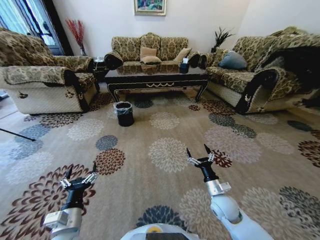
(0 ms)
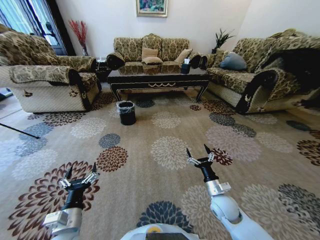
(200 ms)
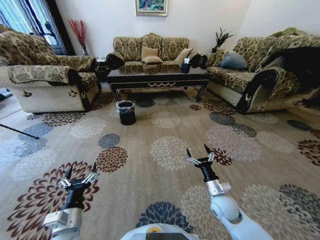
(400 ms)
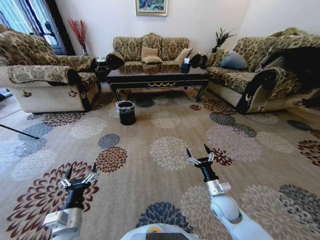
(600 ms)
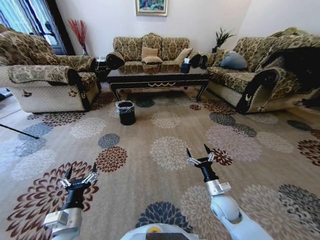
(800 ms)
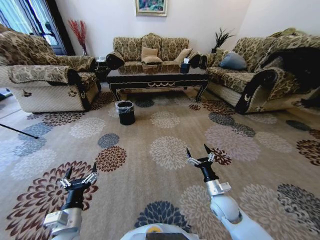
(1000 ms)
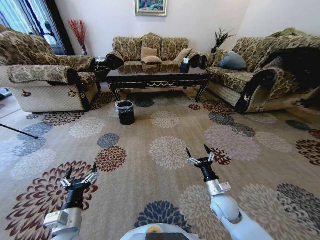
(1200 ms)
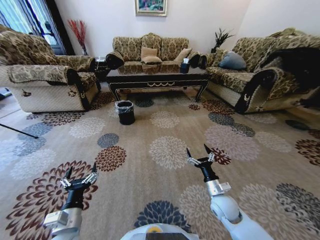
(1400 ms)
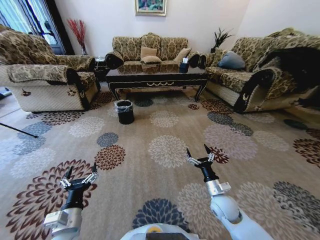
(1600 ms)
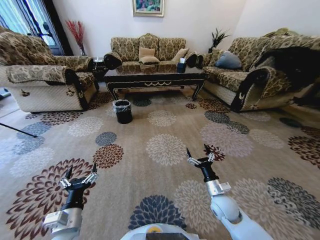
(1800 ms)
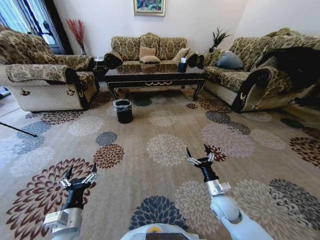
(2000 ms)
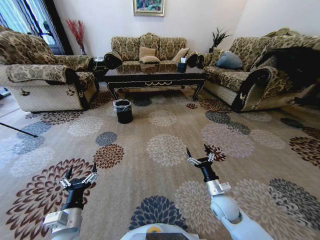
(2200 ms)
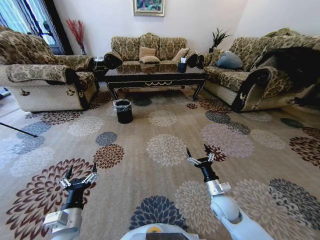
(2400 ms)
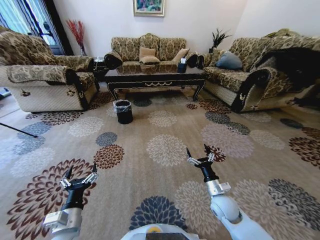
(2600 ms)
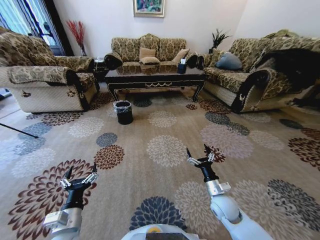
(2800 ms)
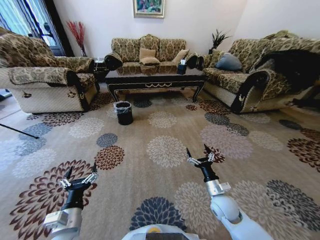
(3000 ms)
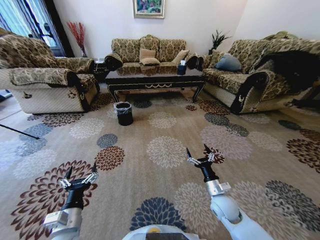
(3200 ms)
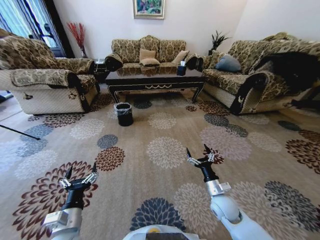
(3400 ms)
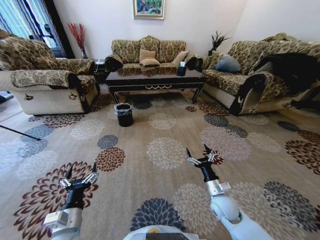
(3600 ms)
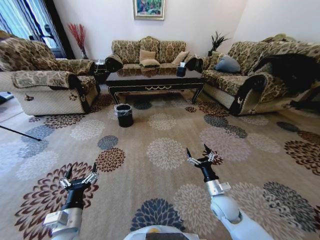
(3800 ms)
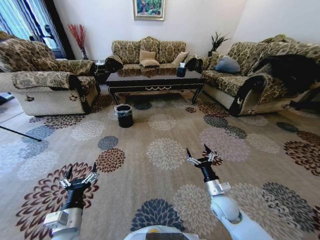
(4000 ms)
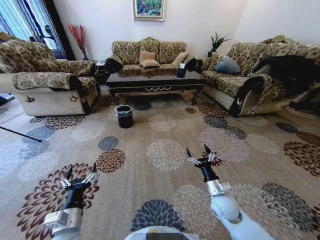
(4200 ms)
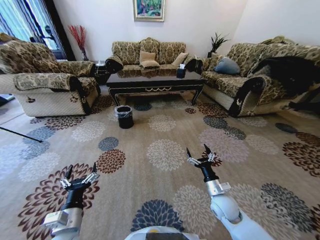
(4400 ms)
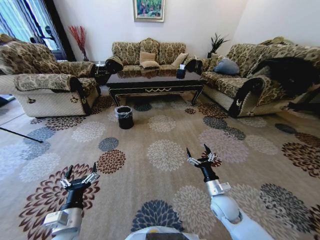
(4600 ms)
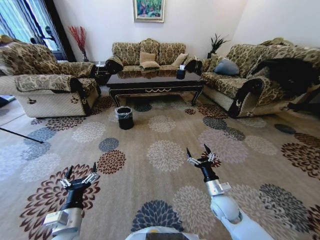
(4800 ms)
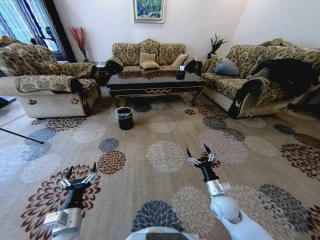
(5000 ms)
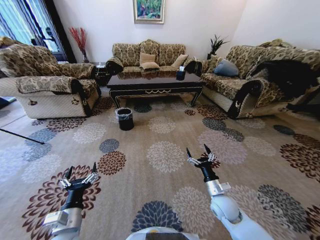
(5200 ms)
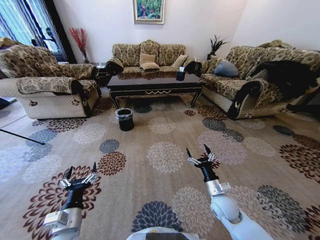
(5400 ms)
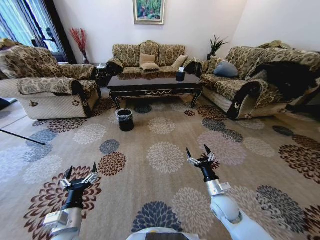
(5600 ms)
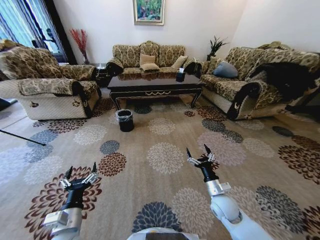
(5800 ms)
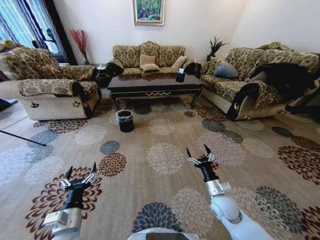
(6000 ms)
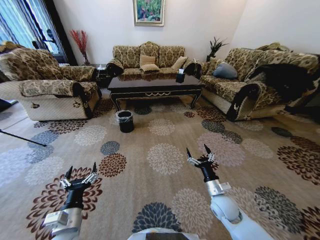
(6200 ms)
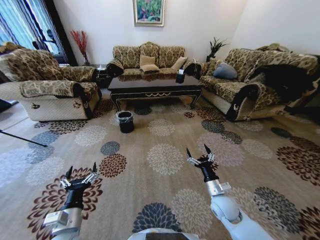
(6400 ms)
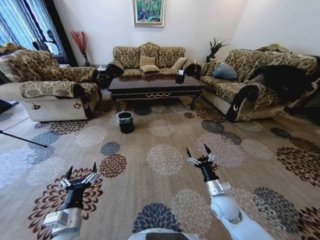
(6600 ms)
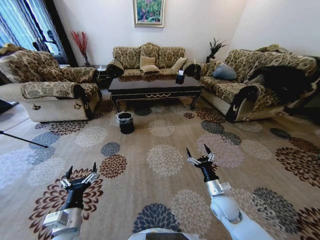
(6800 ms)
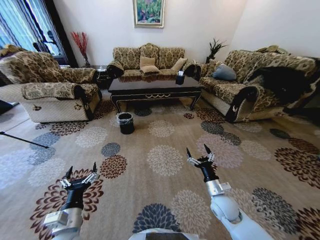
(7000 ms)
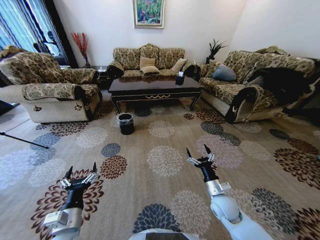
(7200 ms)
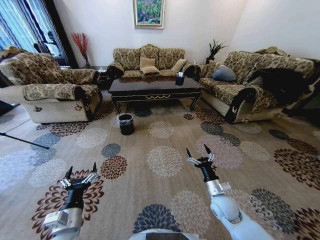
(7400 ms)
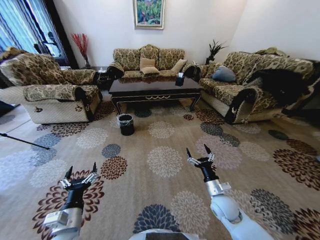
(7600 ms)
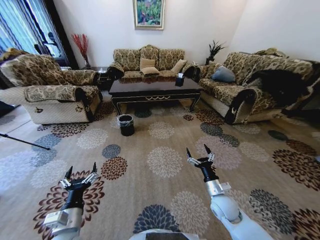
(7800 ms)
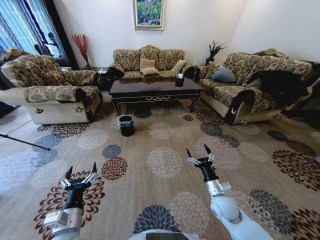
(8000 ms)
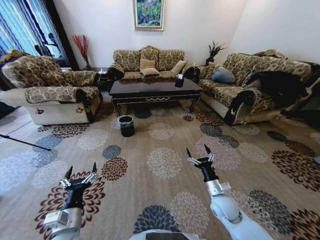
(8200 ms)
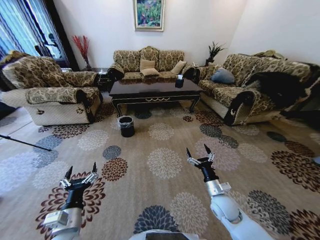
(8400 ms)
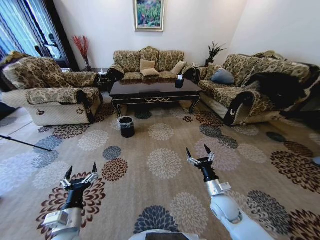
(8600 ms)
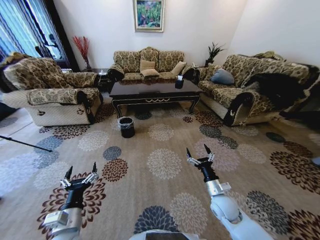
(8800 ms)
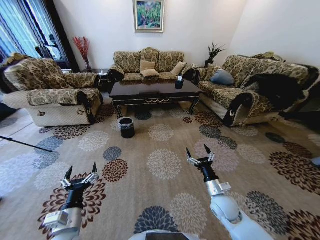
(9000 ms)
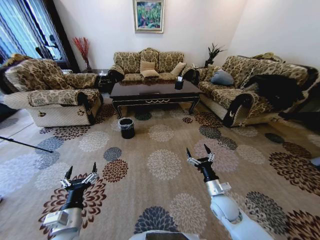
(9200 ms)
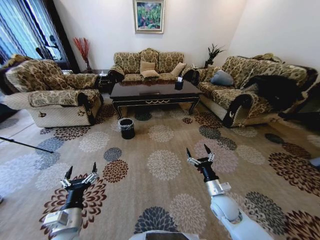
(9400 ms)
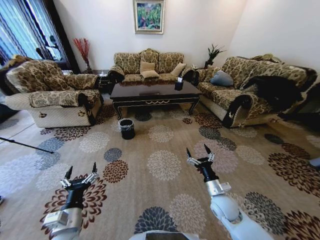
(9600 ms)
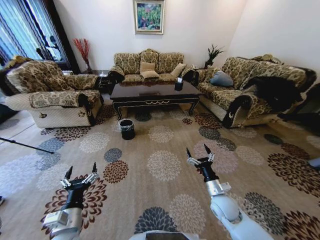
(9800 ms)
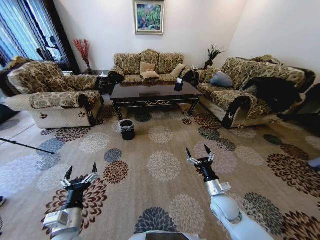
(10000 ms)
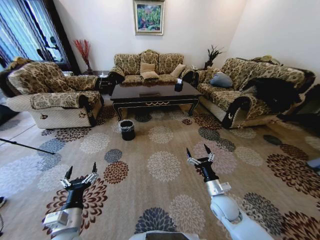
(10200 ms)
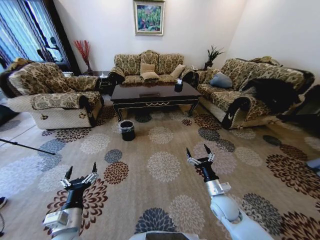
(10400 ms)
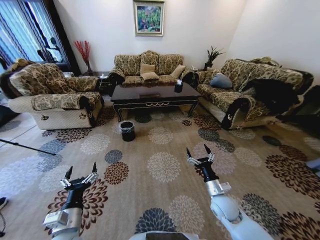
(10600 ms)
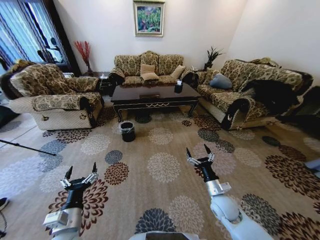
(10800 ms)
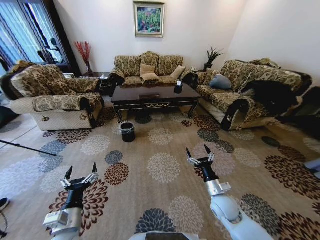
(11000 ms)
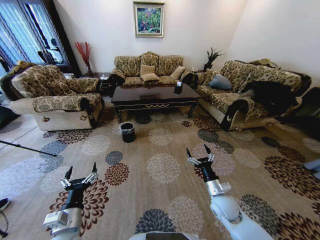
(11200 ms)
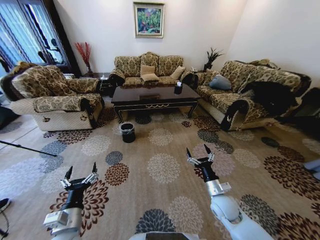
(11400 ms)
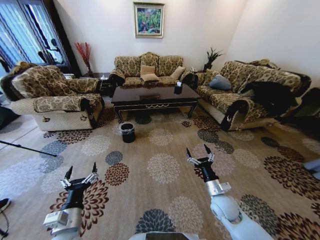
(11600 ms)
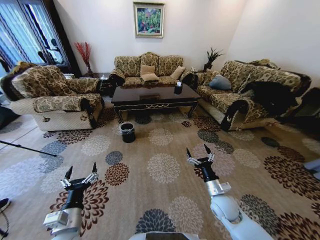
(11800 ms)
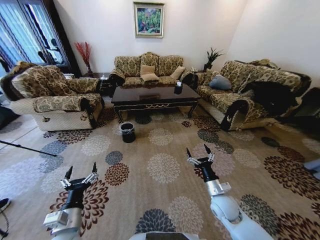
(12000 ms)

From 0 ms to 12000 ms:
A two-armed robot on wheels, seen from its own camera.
Task of the whole recording: Move to the front of the table and pick up the trash from the floor, then place it into the trash bin.
From 0 ms to 3000 ms: Both grippers stay about where they are.
From 10400 ms to 12000 ms: Both grippers stay put.
